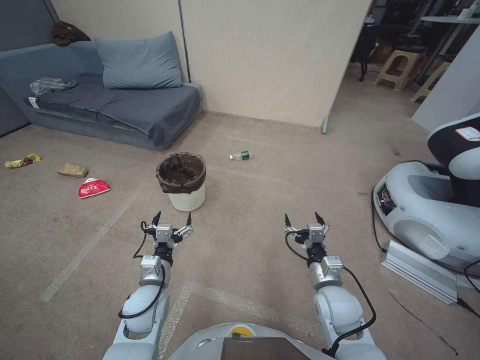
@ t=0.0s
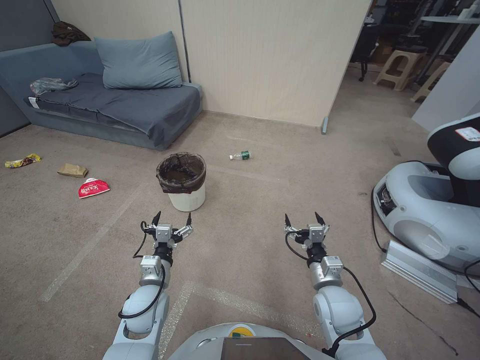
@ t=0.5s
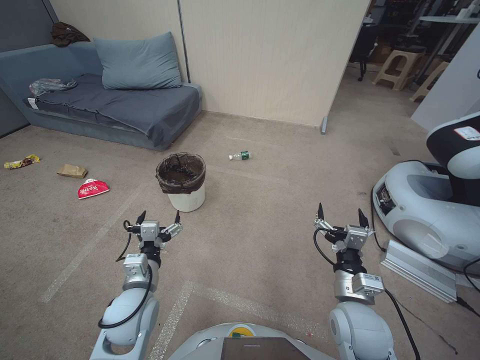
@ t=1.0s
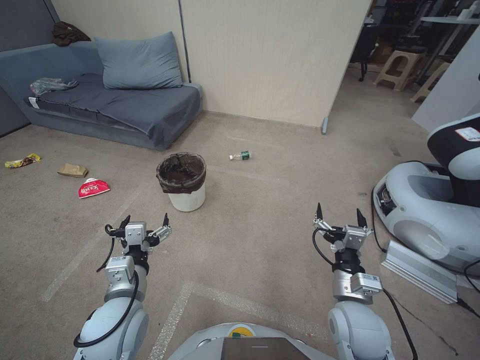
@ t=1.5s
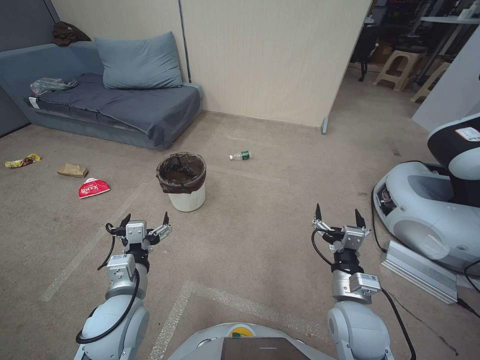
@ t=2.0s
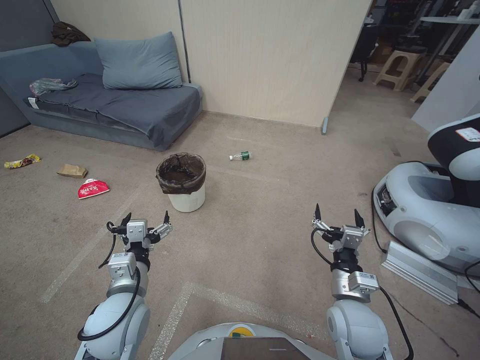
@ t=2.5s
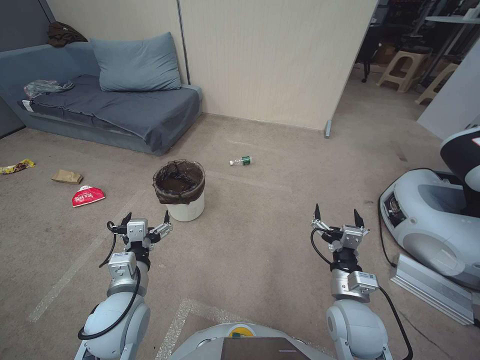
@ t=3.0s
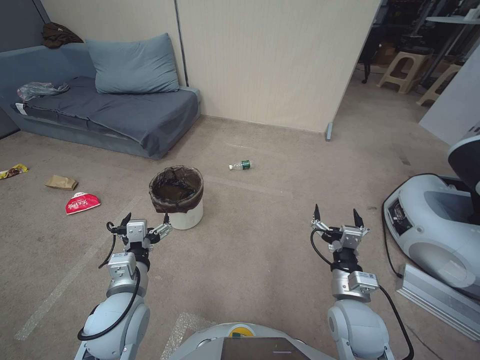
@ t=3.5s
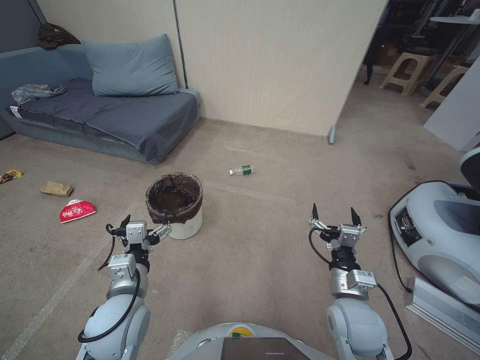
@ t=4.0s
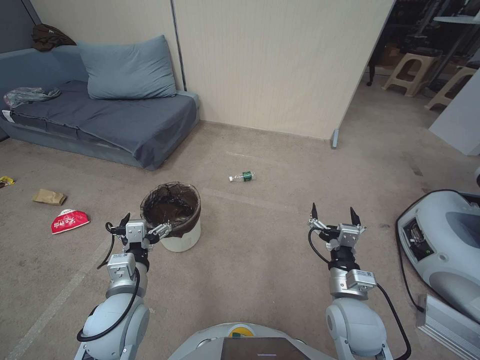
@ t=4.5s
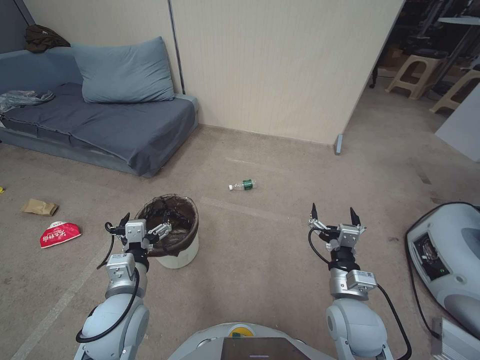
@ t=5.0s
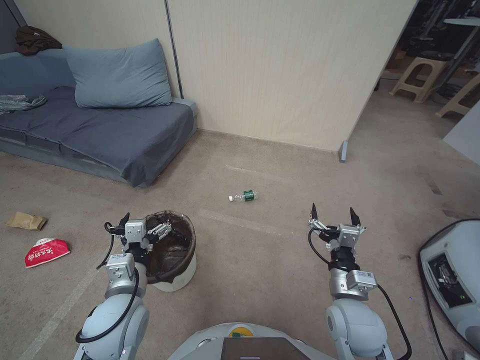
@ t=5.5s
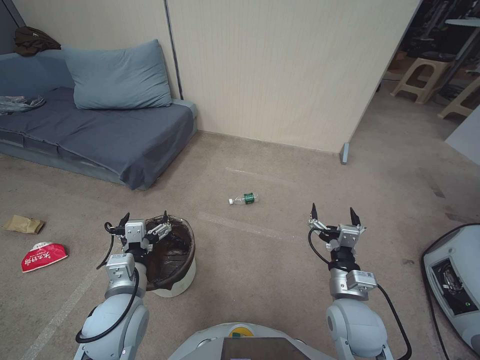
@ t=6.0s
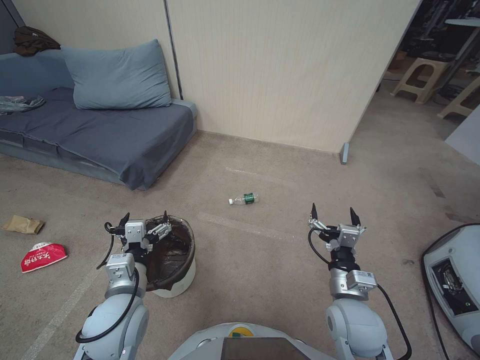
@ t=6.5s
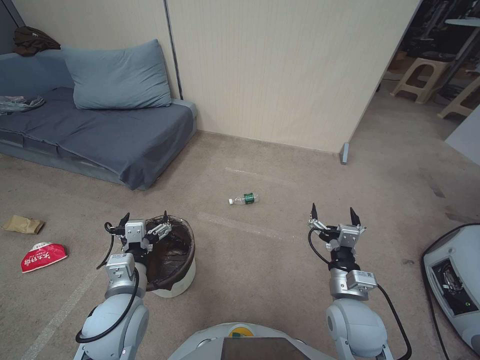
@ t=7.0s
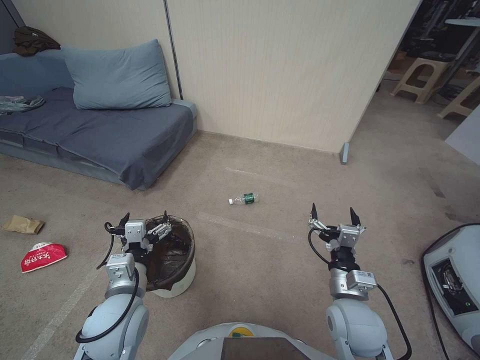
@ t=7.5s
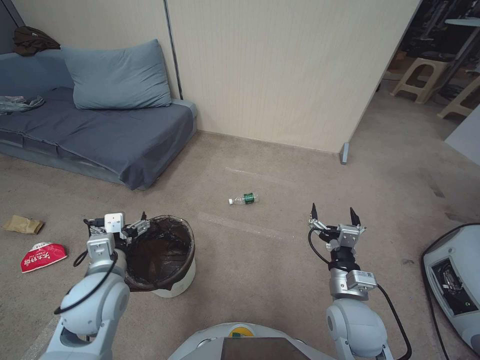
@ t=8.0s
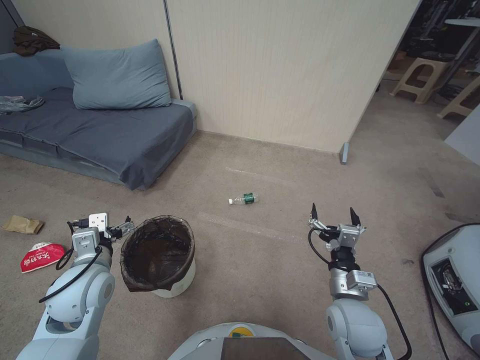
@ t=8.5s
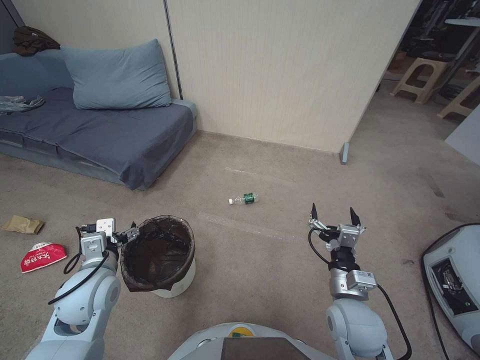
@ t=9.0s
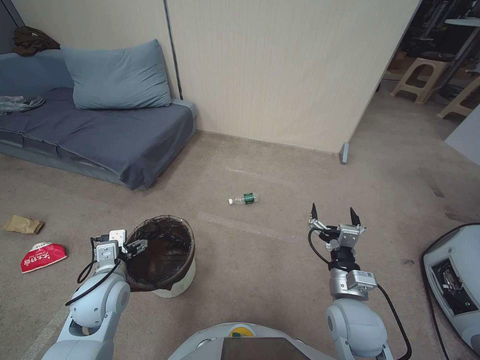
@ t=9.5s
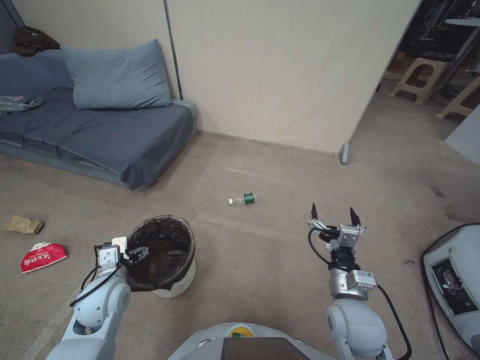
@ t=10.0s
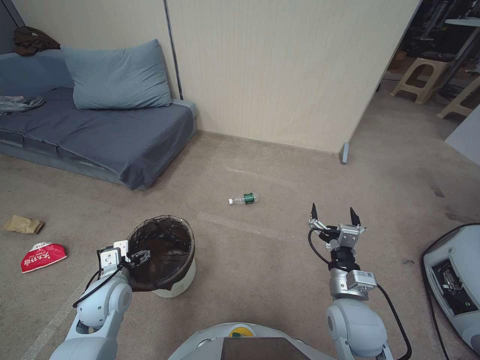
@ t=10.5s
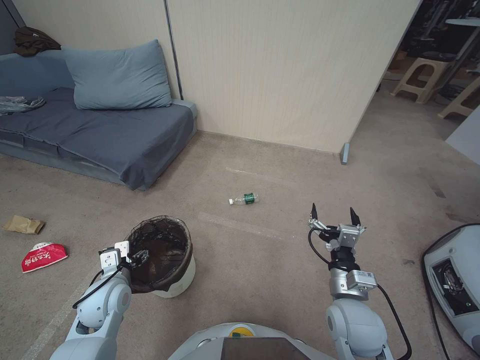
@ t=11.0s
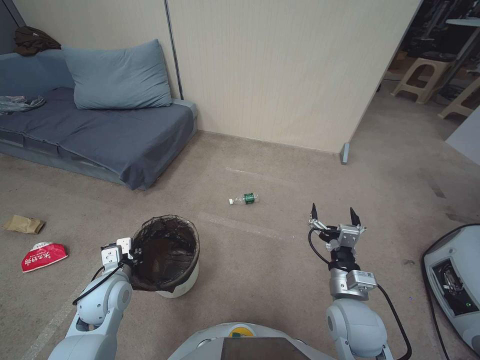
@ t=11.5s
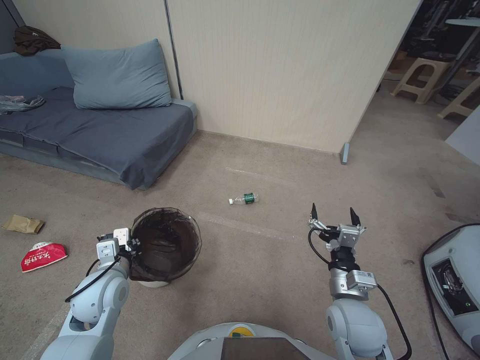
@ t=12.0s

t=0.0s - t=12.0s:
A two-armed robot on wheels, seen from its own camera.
Task of the whole recording: Pick up the trash bin, then pick up the garbage from the floor and place it into the trash bin.
t=6.0s - t=8.0s: The grippers make only small movements.
t=8.0s - t=10.0s: The left gripper is displaced downward by about 5 cm.
t=10.0s - t=12.0s: The left gripper closes up.

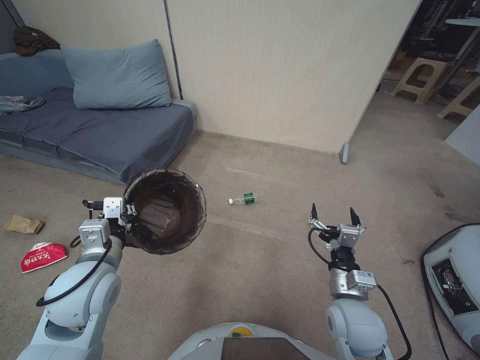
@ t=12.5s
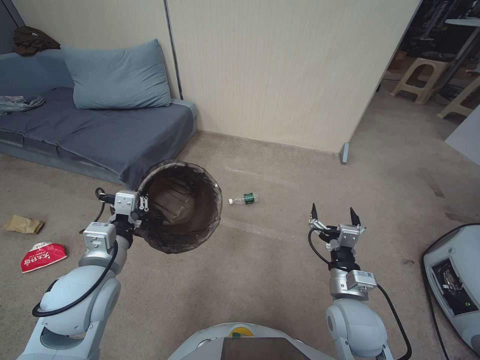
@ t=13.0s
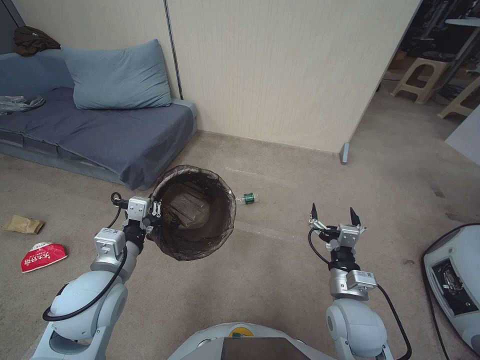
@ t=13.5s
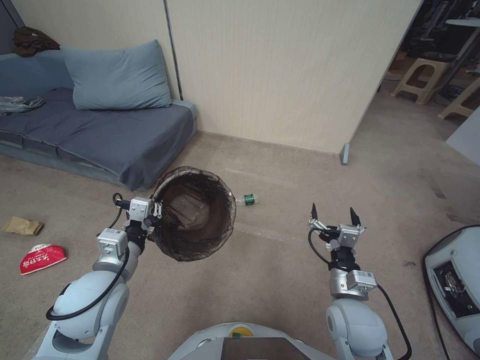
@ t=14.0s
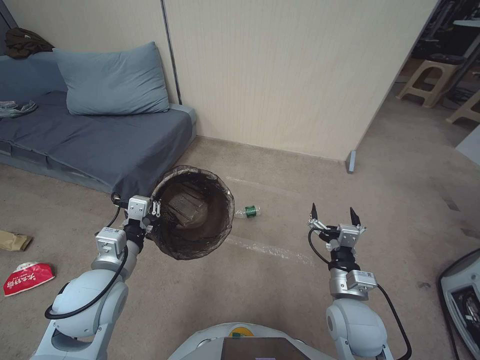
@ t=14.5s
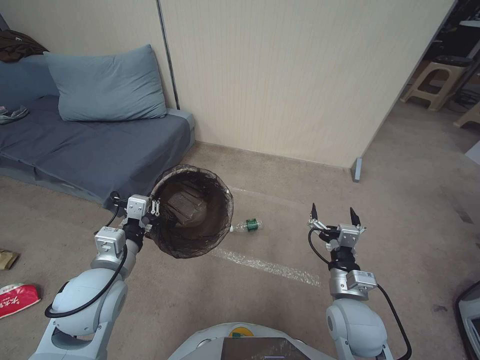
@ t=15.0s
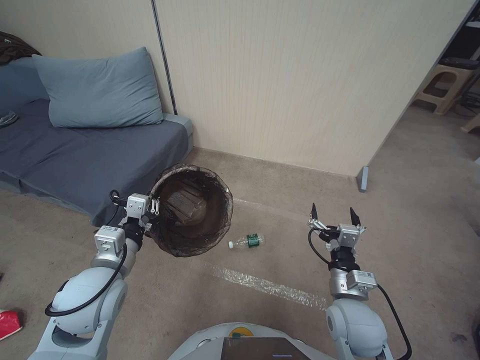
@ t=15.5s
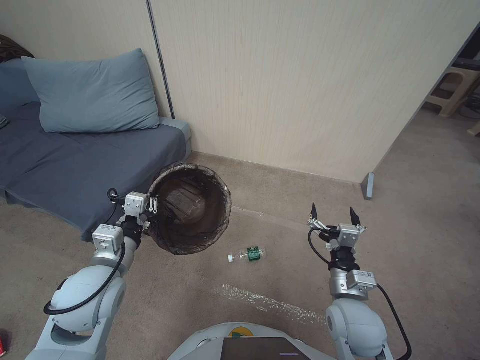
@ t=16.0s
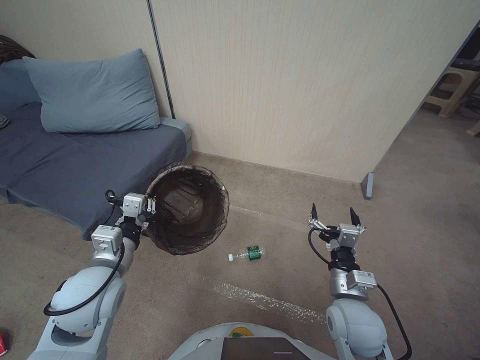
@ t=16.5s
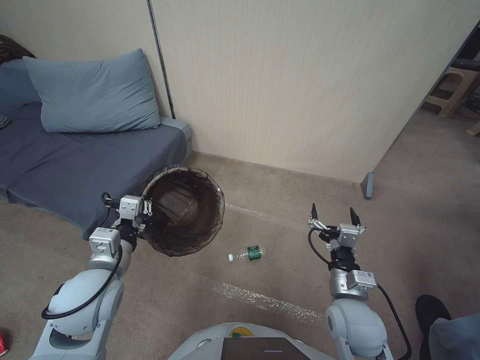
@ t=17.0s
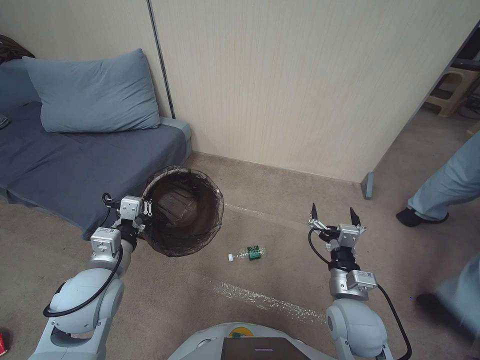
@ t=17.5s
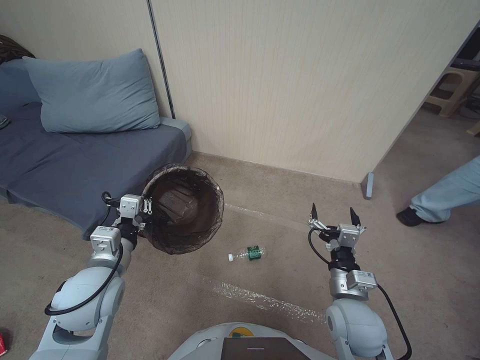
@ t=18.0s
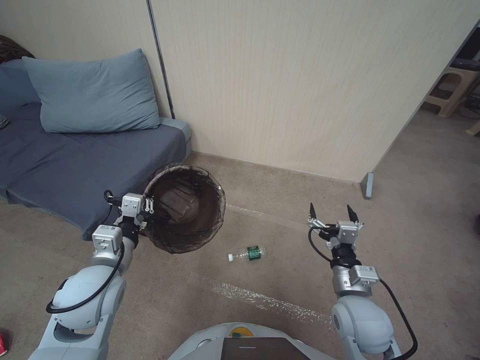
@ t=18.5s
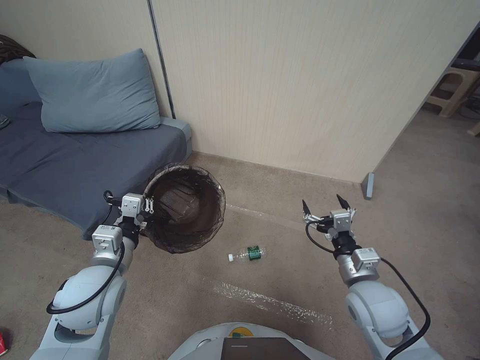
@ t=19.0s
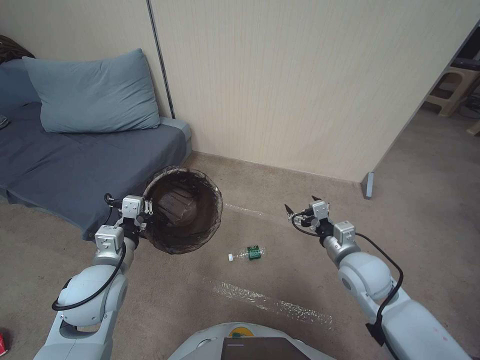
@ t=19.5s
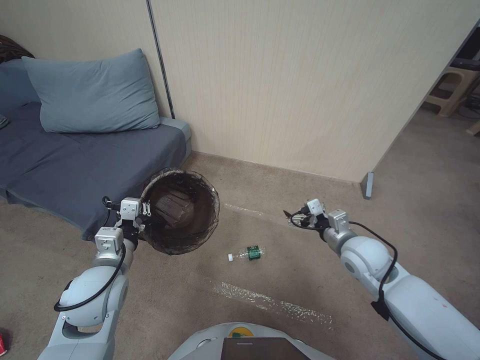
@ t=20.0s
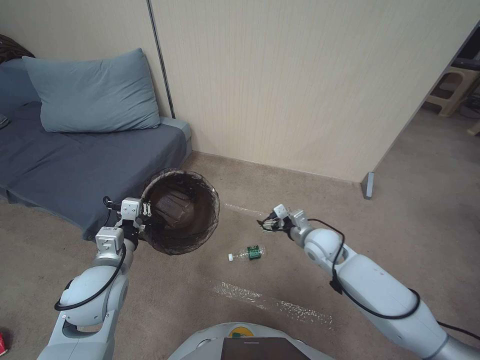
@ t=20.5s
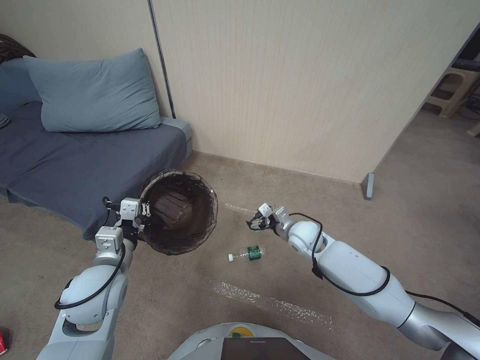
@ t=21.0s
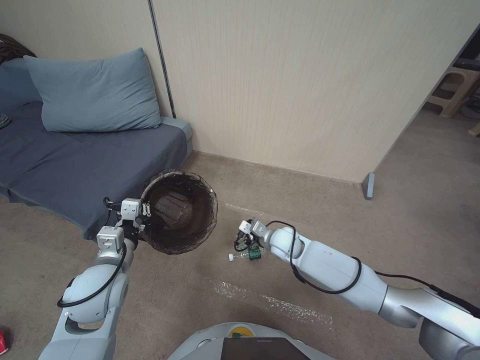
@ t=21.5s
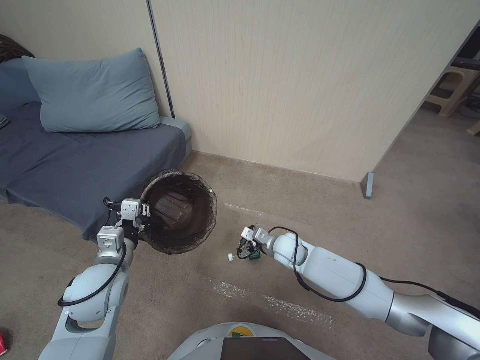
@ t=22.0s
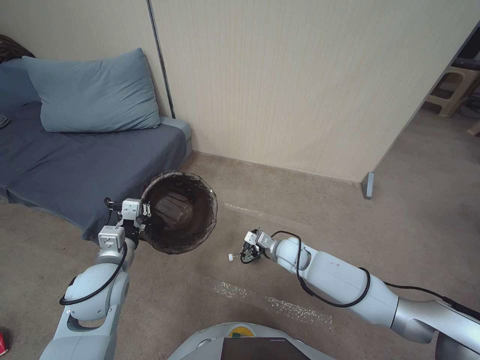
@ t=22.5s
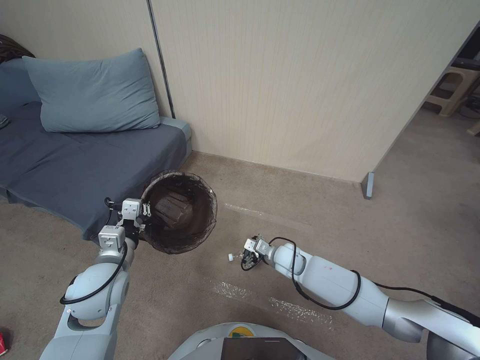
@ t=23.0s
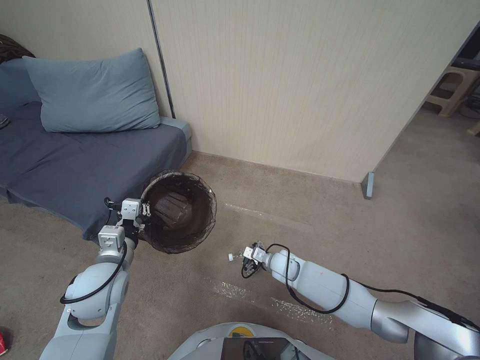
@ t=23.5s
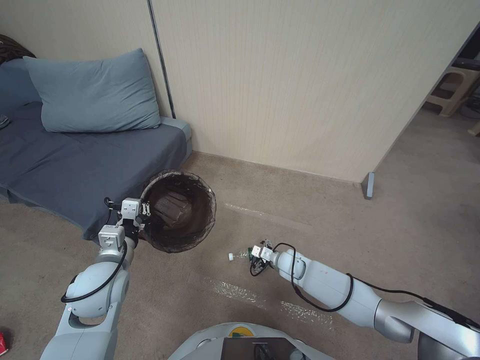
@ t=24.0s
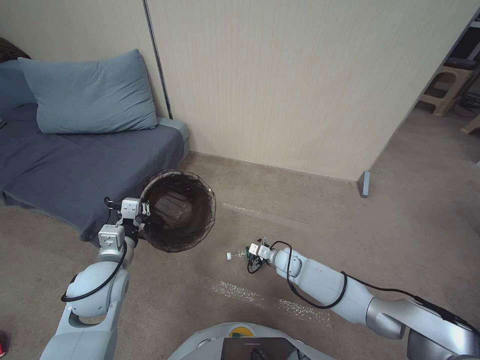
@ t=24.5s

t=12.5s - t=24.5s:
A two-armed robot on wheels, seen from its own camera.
Task of the whole recording: Pick up the trash bin, then pick up the garbage from the floor and place it into the trash bin.
t=16.5s - t=18.5s: Both grippers stay put.
t=18.5s - t=20.5s: The right gripper travels forward by approximately 15 cm.
t=20.5s - t=22.5s: The right gripper shifts roughly 10 cm to the left and downward.
t=22.5s - t=24.5s: The right gripper shifts roughly 10 cm downward.

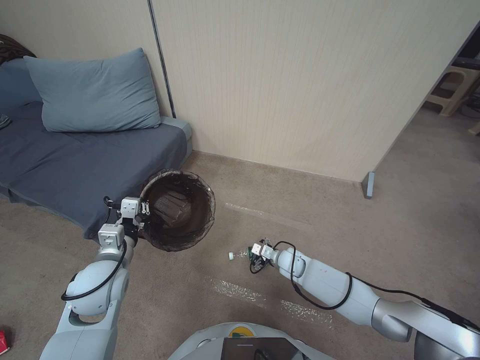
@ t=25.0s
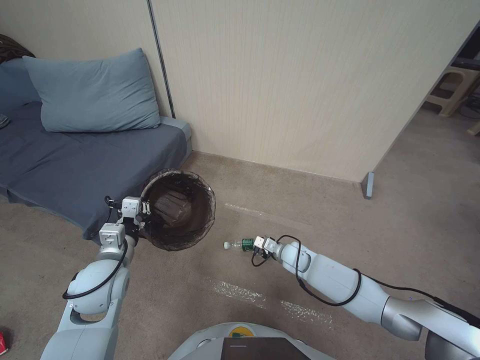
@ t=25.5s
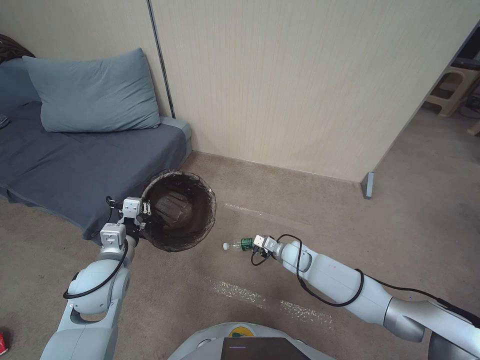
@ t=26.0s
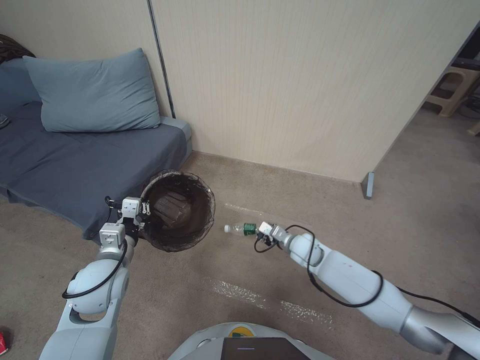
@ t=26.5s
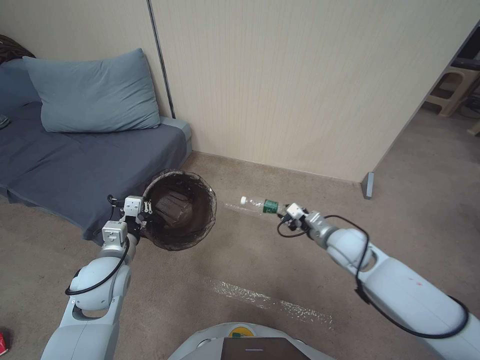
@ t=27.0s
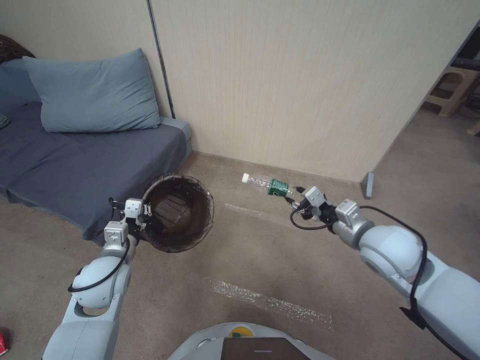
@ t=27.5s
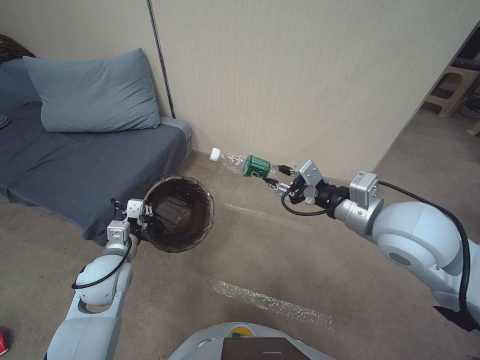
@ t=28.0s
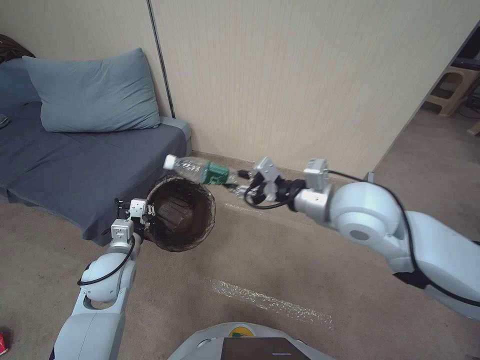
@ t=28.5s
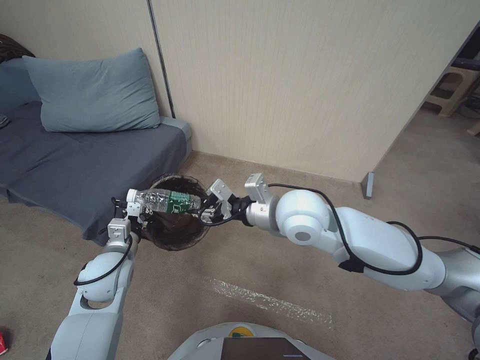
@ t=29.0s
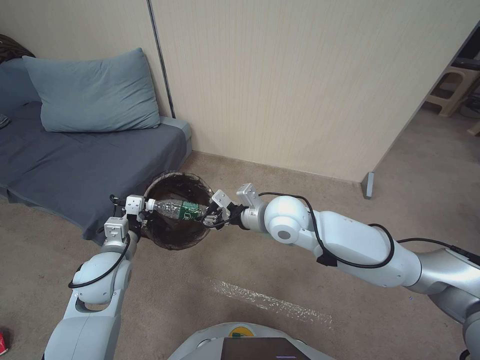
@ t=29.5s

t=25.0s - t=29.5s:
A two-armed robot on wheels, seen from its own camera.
Task of the whole recording: Pick up the trash bin, then pick up the garbage from the floor and place it into the trash bin.
t=25.0s - t=27.0s: The right gripper shifts approximately 20 cm upward, and closes up.
t=27.0s - t=29.5s: The right gripper moves to the left and upward, some 20 cm.
